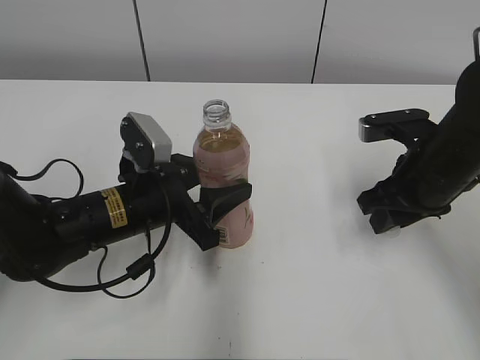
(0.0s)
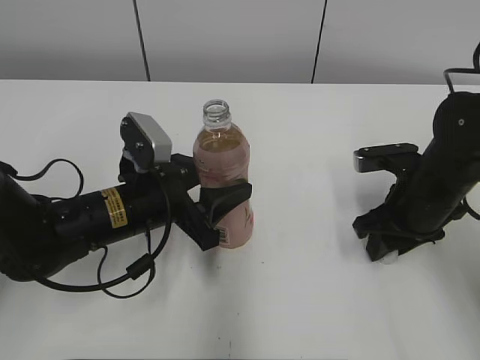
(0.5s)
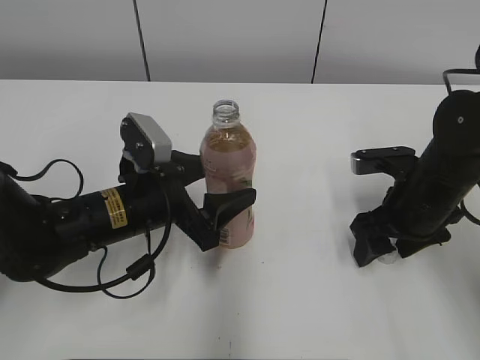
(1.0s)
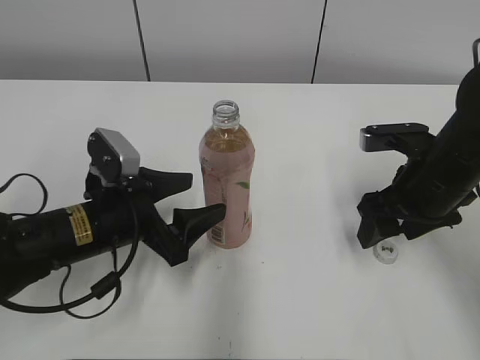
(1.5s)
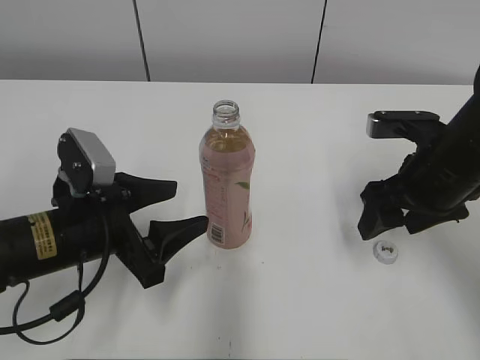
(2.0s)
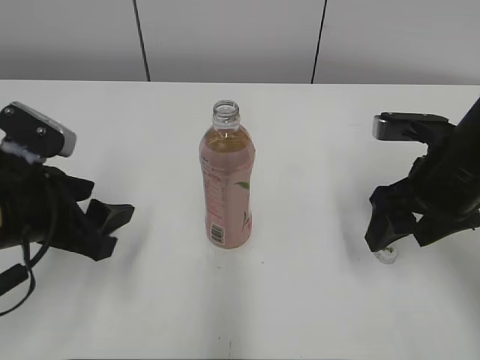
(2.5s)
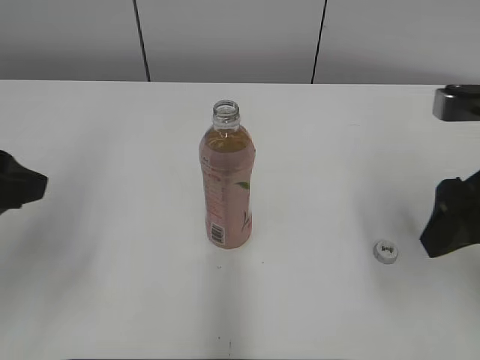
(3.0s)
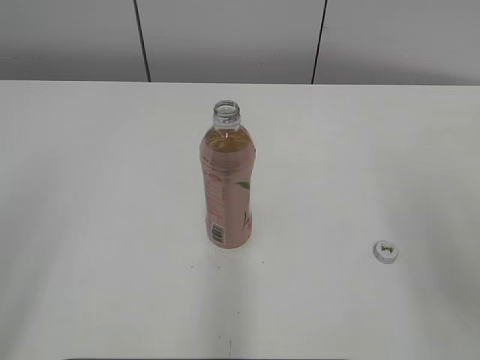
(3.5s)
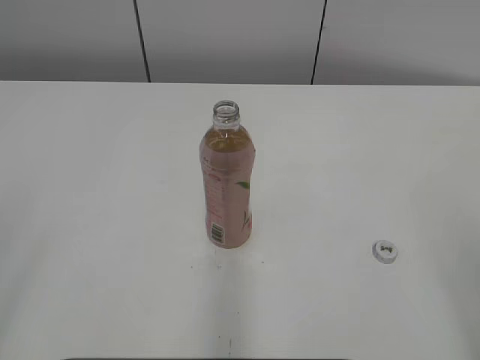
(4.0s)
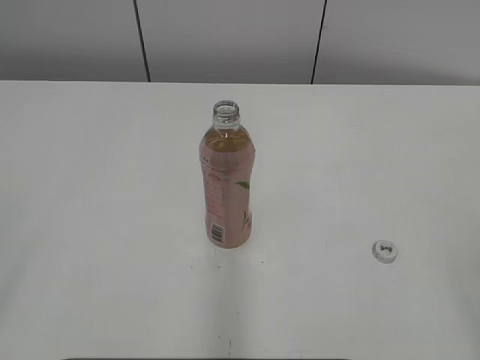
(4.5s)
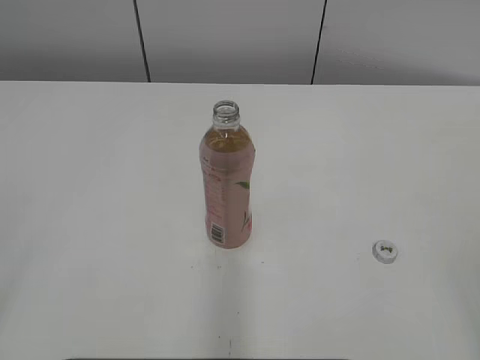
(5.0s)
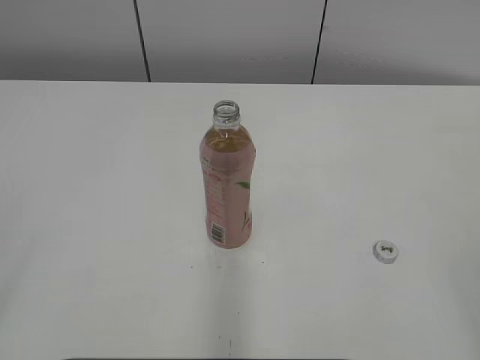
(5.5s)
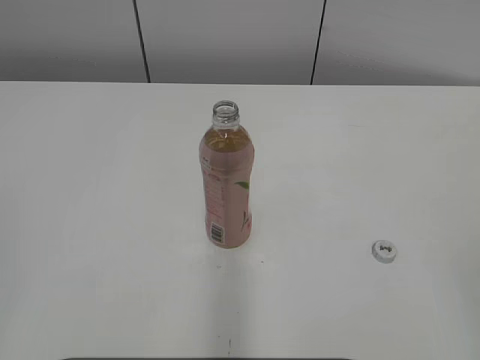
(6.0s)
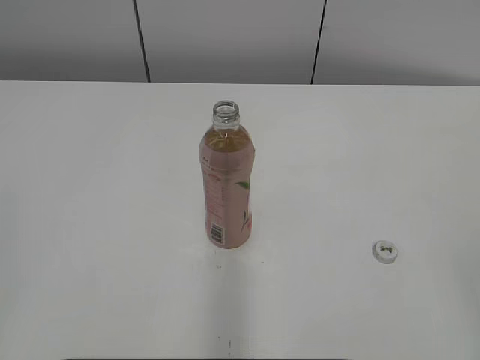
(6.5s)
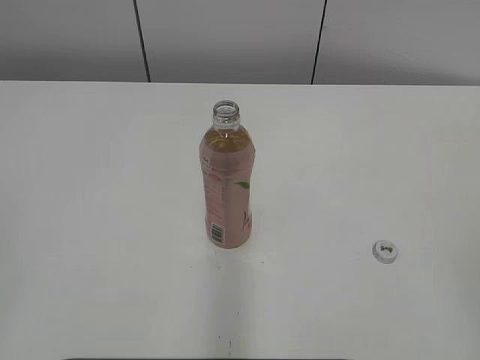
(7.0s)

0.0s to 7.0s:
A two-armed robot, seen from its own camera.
0.0s to 2.0s: The right gripper opens. Meanwhile the left gripper is displaced backward by some 5 cm.
2.0s to 3.5s: The right gripper heads backward and upward, covering about 20 cm, while the left gripper heads upward, backward and to the left, covering some 30 cm.
